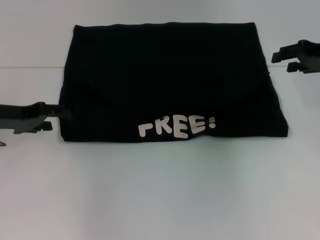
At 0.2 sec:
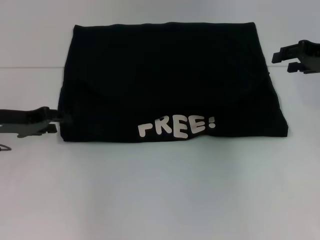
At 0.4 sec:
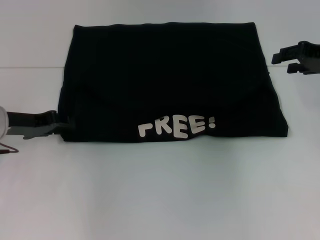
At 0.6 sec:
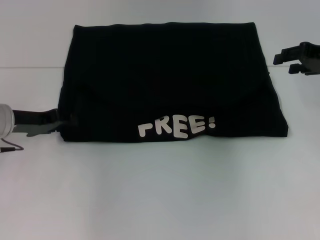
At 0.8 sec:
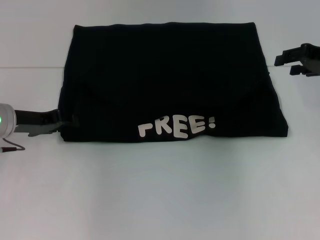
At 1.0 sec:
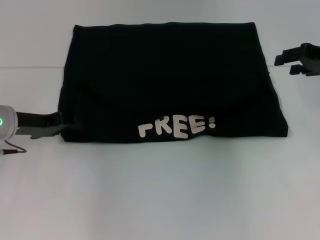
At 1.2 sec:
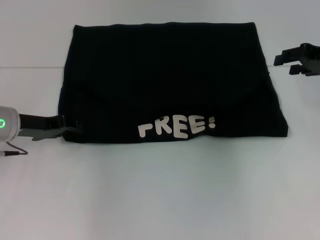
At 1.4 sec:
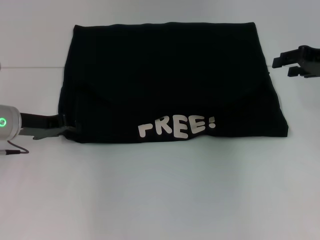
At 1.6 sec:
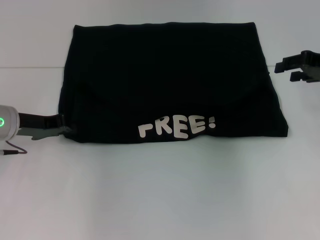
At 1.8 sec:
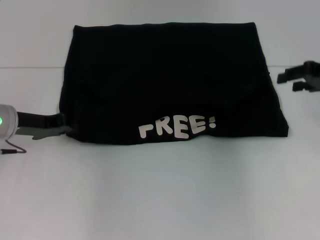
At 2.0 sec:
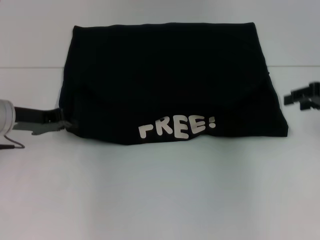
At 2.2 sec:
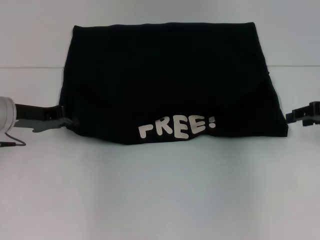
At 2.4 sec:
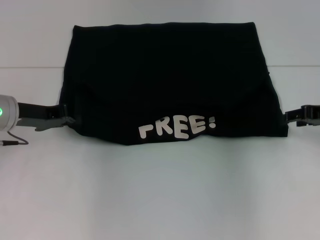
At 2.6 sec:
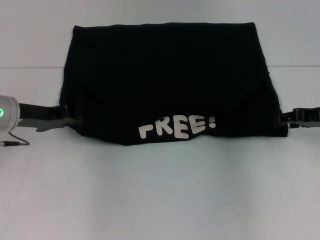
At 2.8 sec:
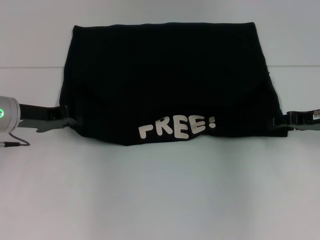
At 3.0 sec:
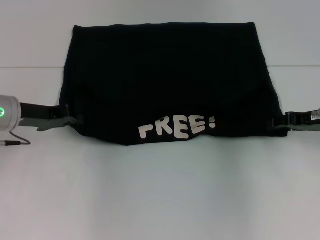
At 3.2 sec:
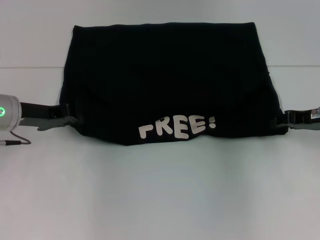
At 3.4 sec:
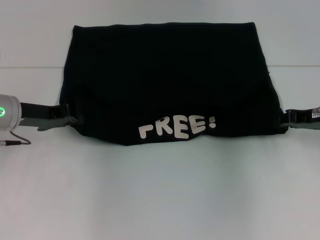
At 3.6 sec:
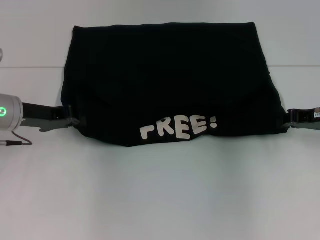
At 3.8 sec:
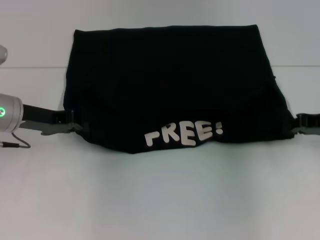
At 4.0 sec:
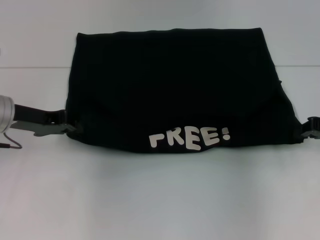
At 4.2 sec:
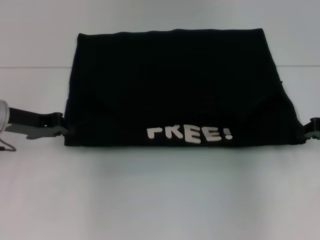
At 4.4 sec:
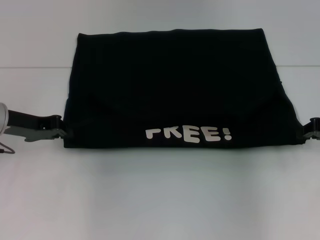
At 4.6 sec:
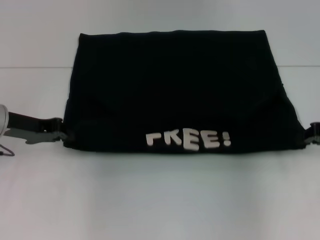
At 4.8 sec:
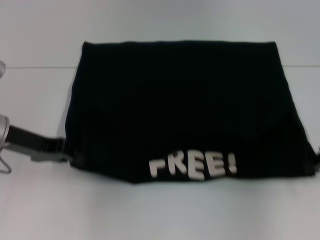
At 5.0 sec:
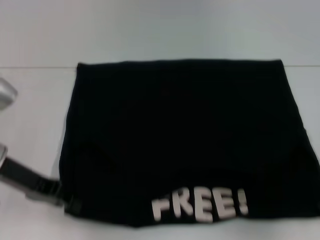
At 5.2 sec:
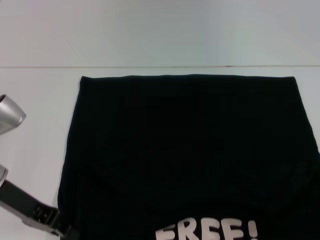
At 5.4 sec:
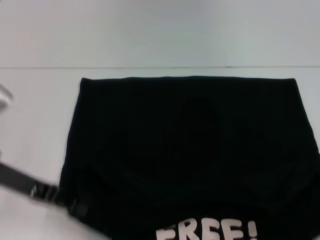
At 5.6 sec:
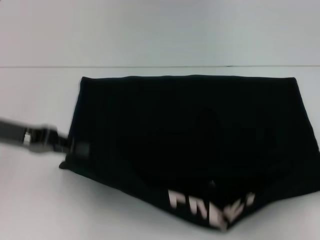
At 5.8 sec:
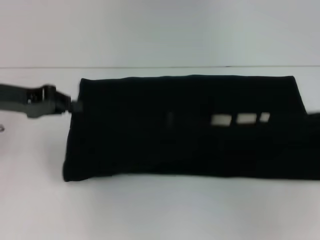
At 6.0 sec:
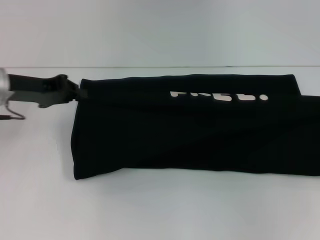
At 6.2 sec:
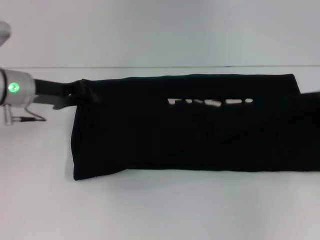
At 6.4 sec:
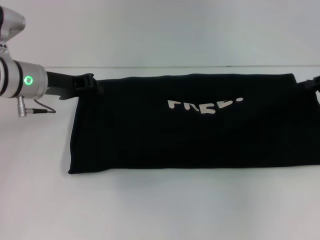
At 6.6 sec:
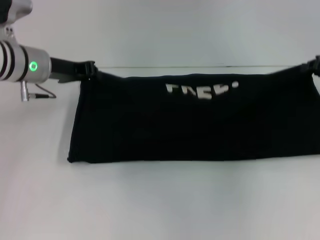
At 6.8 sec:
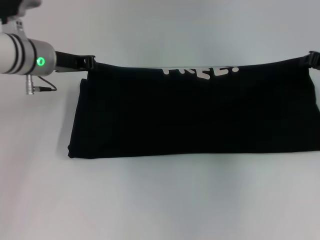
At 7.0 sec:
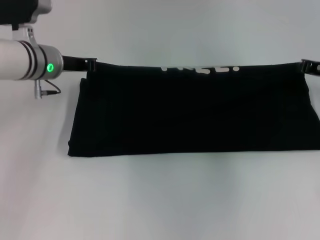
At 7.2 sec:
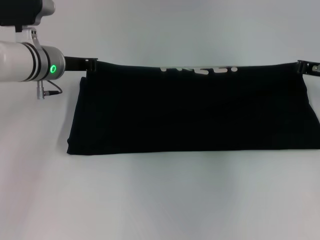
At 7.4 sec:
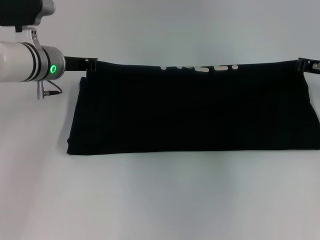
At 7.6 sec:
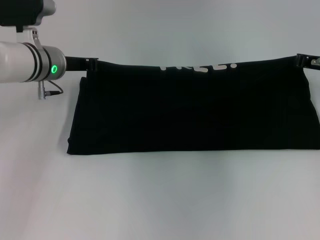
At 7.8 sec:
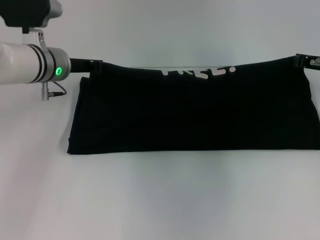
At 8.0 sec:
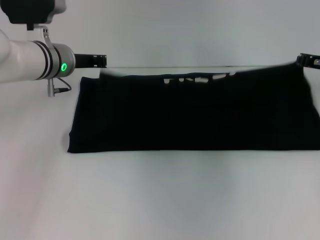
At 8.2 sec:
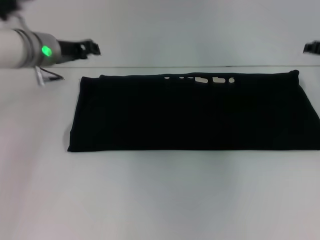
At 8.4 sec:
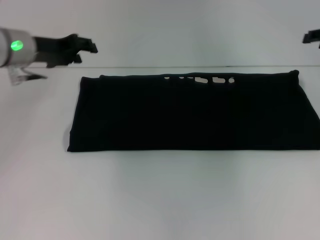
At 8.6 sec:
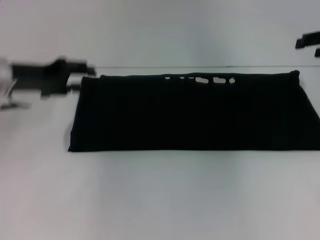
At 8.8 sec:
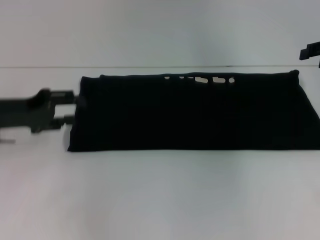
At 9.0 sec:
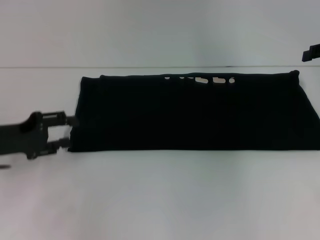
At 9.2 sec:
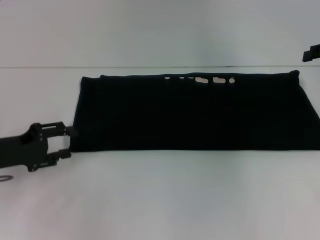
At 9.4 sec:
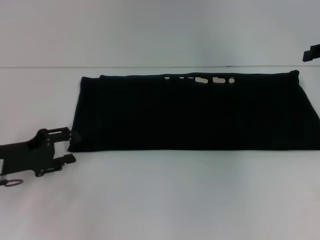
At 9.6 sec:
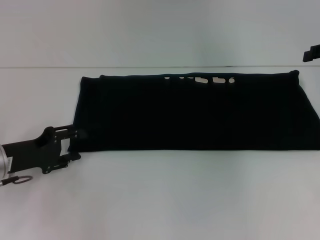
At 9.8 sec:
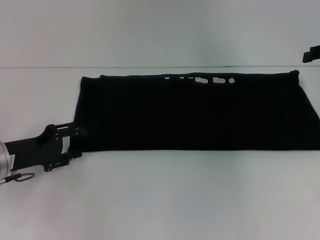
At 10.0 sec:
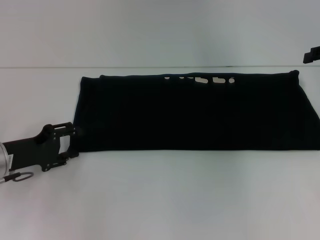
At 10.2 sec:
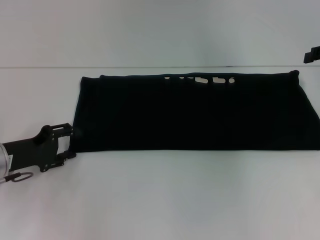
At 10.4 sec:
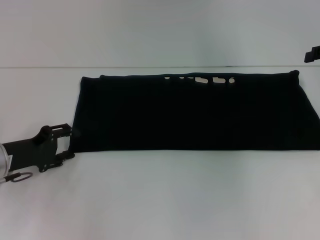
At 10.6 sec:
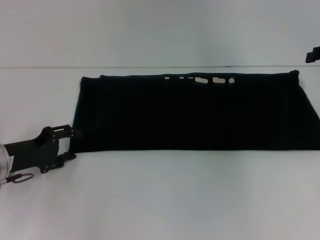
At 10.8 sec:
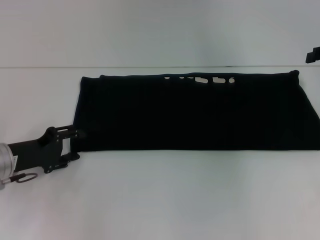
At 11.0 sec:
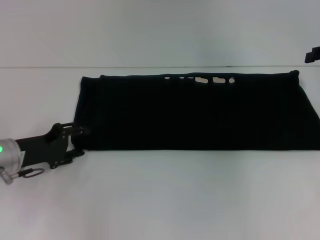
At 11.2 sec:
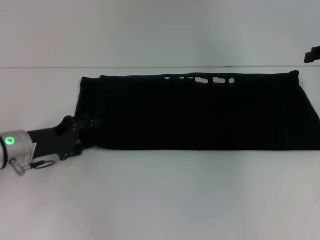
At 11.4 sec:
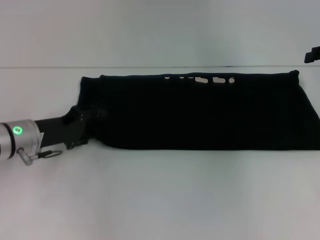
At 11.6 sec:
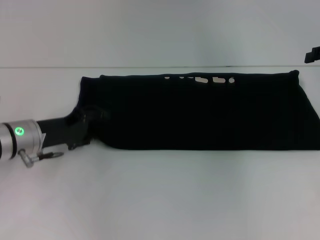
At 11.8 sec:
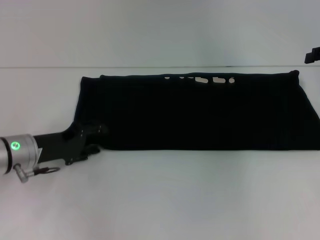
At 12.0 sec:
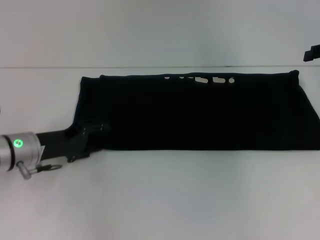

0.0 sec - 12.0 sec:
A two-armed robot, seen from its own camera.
Step, 0.0 sec - 5.2 sec: Pull the clothes with your left hand.
Step, 0.0 sec - 5.2 sec: Pull the clothes with your right hand.
Step, 5.4 sec - 8.2 sec: Fold the clothes with your right hand.
0.0 sec - 1.6 sec: The left gripper closes its fingers.
1.6 sec - 3.0 sec: The right gripper moves downward, about 10 cm.
3.0 sec - 4.4 sec: The right gripper closes its fingers.
4.4 sec - 6.0 sec: The left gripper travels backward and back again, approximately 10 cm each way. The right gripper heads to the right, covering about 5 cm, and goes backward and returns, some 10 cm each way.
6.0 sec - 7.6 sec: The right gripper is displaced to the left and forward by about 15 cm. Meanwhile the left gripper moves to the right and forward, about 10 cm.
7.6 sec - 9.0 sec: The right gripper moves upward and to the right, some 10 cm, and opens up. Meanwhile the left gripper is displaced backward and to the left by approximately 20 cm, and opens.
9.0 sec - 10.4 sec: The left gripper changes place by roughly 5 cm.
10.4 sec - 12.0 sec: The left gripper moves about 5 cm.

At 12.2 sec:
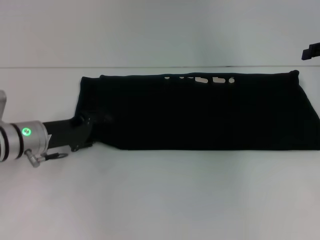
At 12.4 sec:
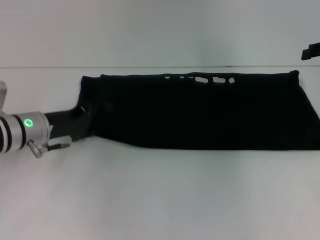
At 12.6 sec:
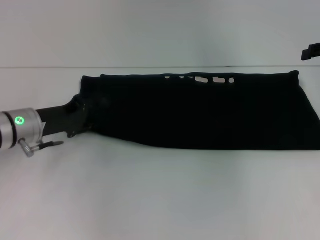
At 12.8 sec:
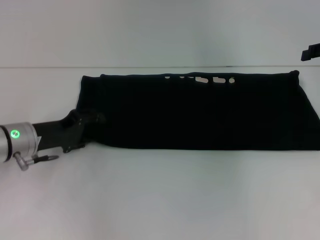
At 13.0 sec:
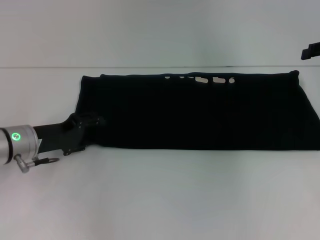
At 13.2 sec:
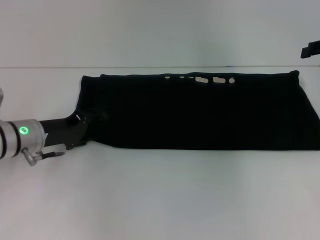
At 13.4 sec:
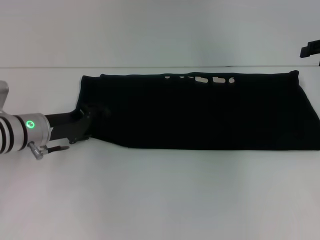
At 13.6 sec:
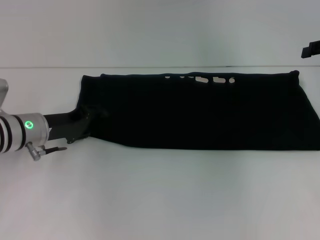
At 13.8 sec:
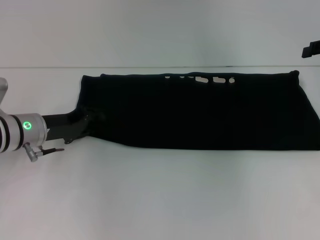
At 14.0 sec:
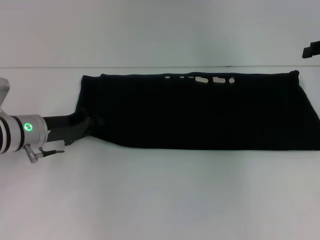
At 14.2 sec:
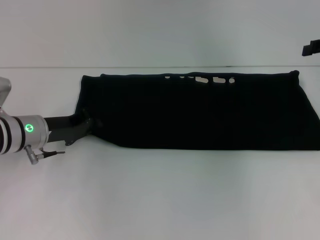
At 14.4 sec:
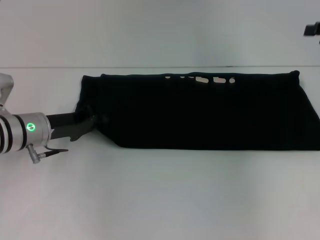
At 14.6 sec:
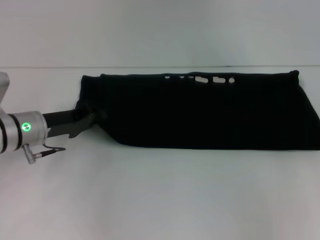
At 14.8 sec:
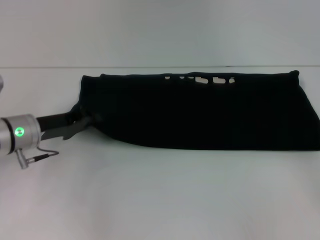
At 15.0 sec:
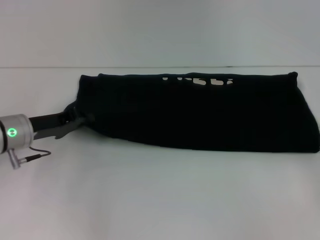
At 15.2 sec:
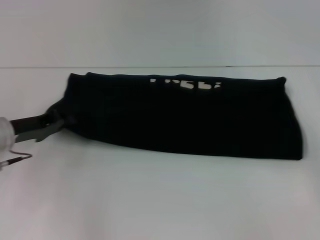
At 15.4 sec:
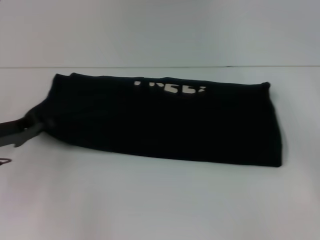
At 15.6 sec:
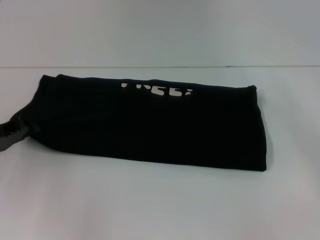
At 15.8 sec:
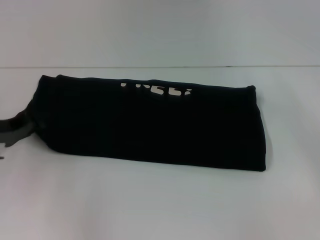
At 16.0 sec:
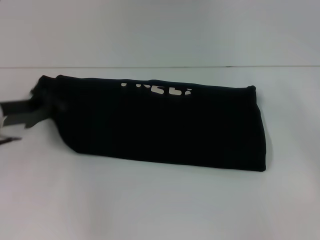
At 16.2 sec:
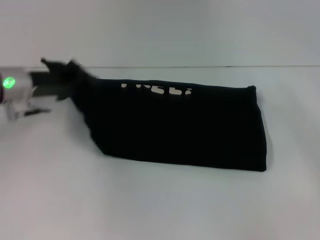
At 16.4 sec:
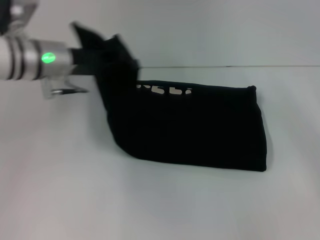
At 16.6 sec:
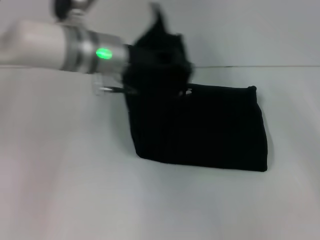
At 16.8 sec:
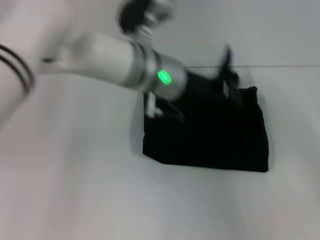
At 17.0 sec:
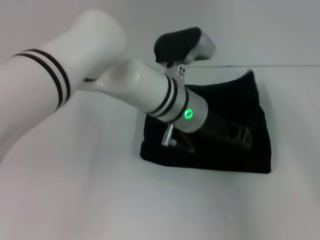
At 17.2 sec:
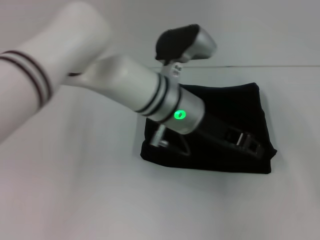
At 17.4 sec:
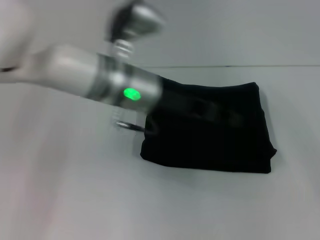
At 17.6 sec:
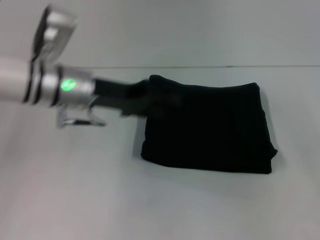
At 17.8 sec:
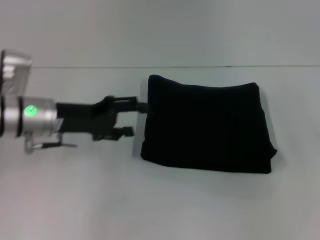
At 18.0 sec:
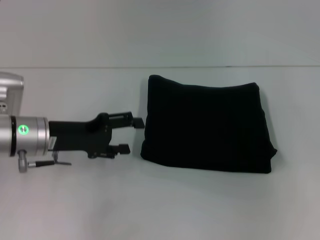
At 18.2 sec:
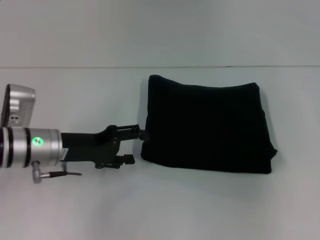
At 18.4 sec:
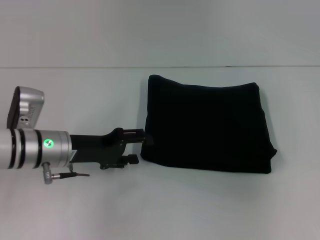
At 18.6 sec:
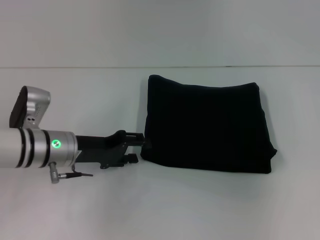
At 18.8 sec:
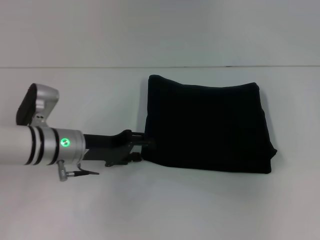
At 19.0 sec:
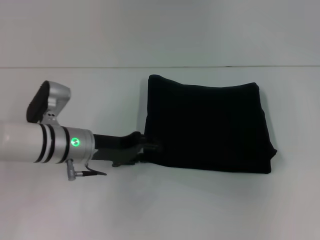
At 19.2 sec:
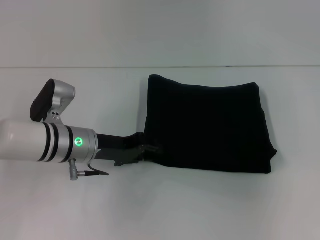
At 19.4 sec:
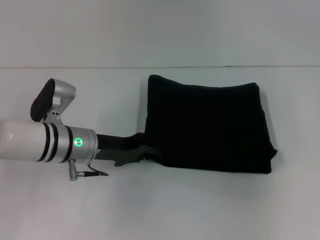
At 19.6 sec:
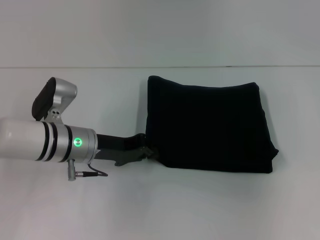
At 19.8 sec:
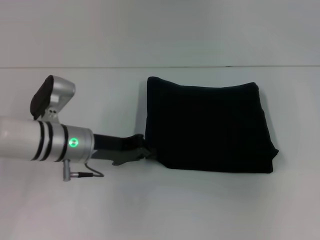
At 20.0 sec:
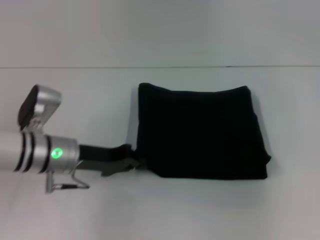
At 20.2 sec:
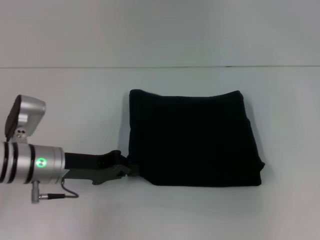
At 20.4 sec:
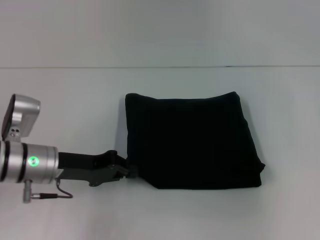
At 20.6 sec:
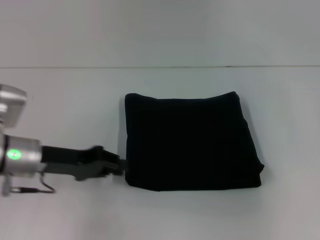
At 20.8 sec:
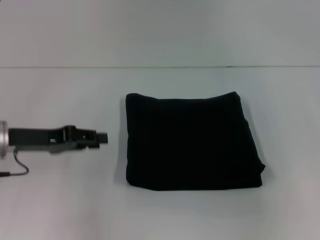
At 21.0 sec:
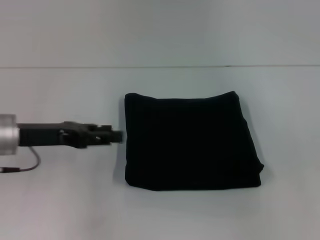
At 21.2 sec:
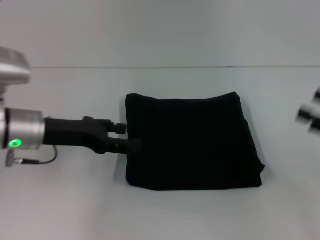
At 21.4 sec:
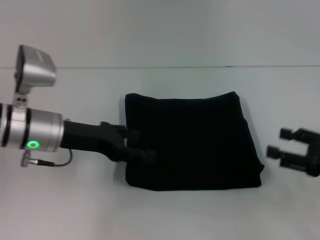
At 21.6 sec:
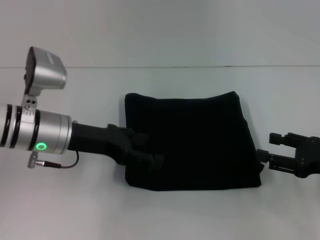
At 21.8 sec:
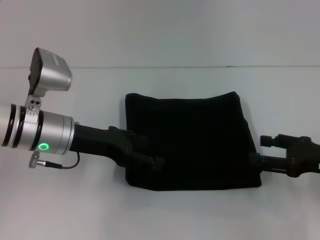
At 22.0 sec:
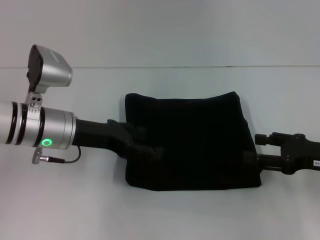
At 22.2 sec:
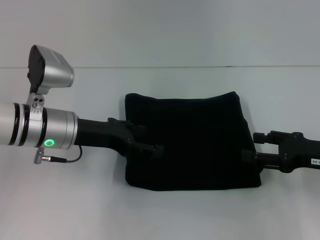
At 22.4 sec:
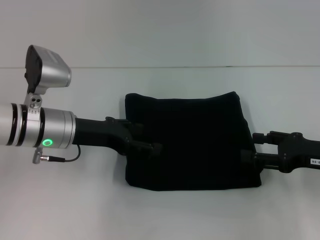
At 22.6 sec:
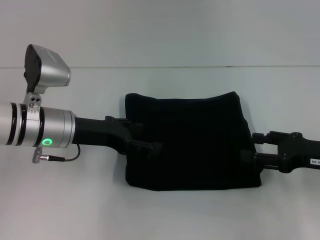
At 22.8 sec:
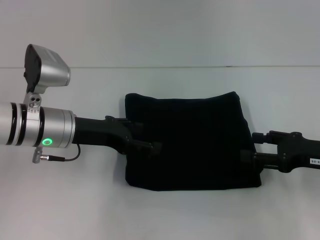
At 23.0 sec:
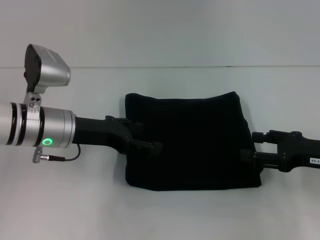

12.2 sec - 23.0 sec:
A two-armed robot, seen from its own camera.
Step, 12.2 sec - 17.4 sec: Fold the clothes with your left hand.
12.2 sec - 13.8 sec: The grippers move only a little.
13.8 sec - 15.2 sec: The left gripper closes. The right gripper is displaced backward, downward and to the right by approximately 20 cm.
15.2 sec - 16.8 sec: The left gripper heads to the right, covering roughly 25 cm.
16.8 sec - 18.4 sec: The left gripper shifts some 20 cm to the left and downward, and opens up; the right gripper moves upward and forward, approximately 15 cm.
18.4 sec - 20.0 sec: The left gripper closes its fingers.
20.0 sec - 21.4 sec: The left gripper heads upward, covering roughly 5 cm, travels to the left and back again, about 10 cm each way, and opens, while the right gripper moves downward, backward and to the left, some 20 cm.
21.4 sec - 23.0 sec: The grippers make only small movements.
